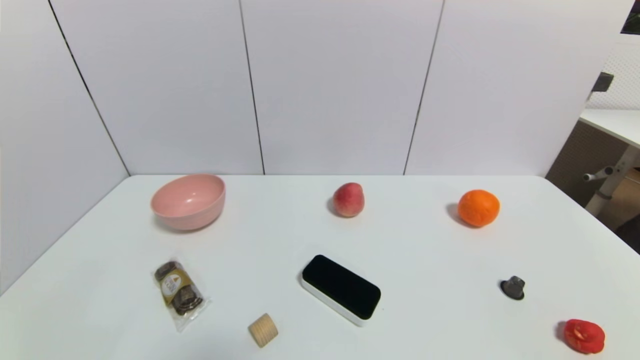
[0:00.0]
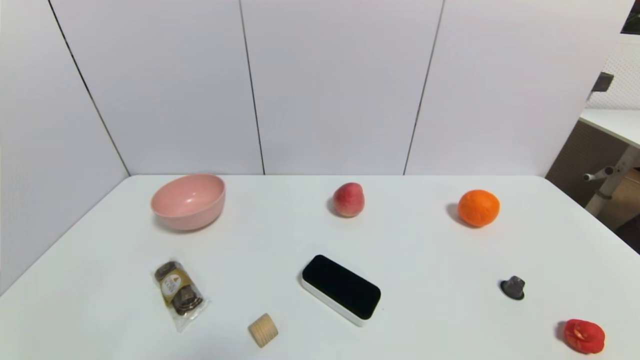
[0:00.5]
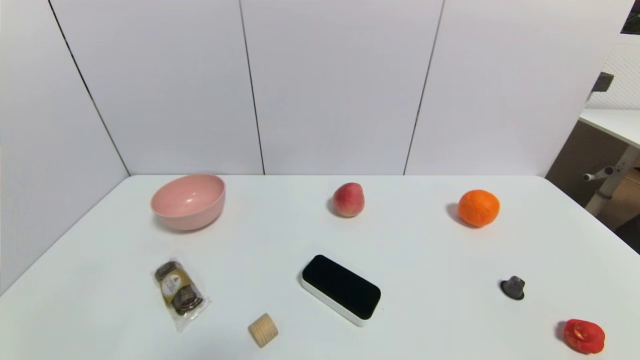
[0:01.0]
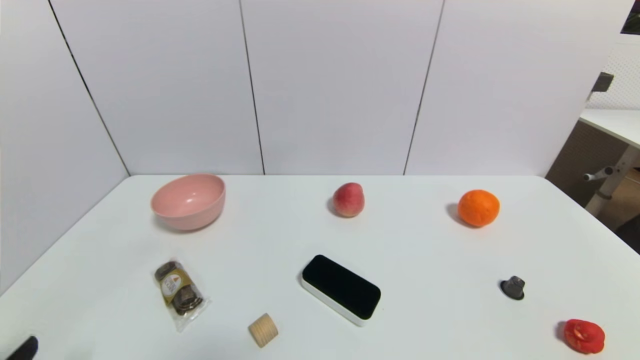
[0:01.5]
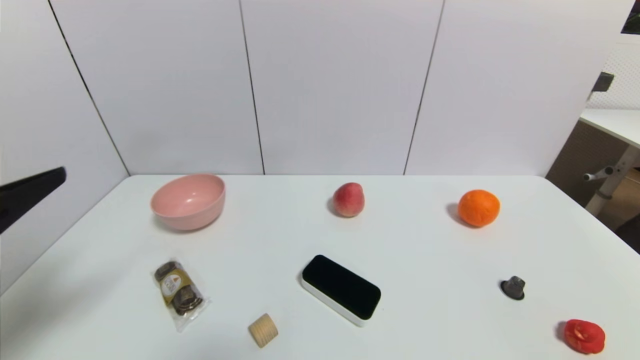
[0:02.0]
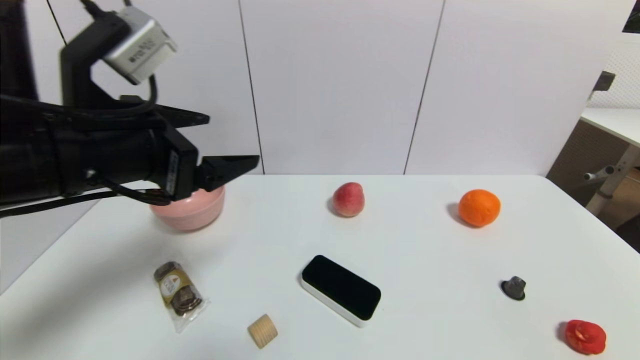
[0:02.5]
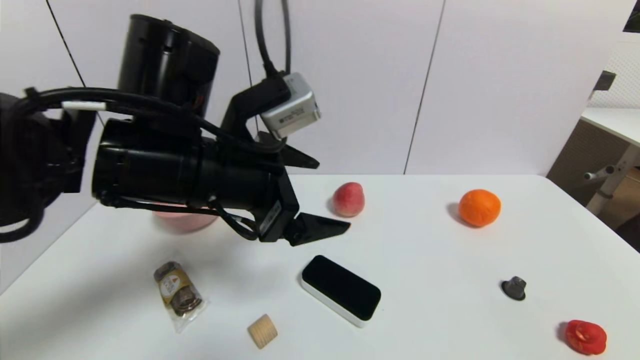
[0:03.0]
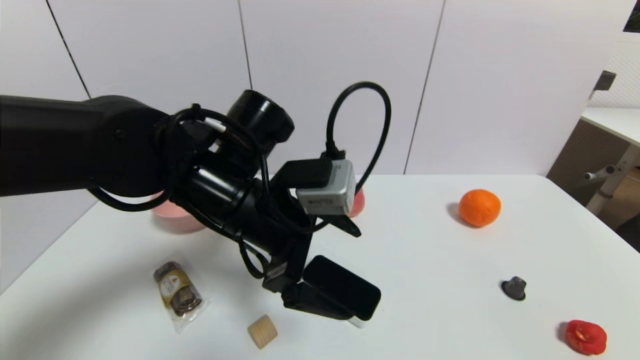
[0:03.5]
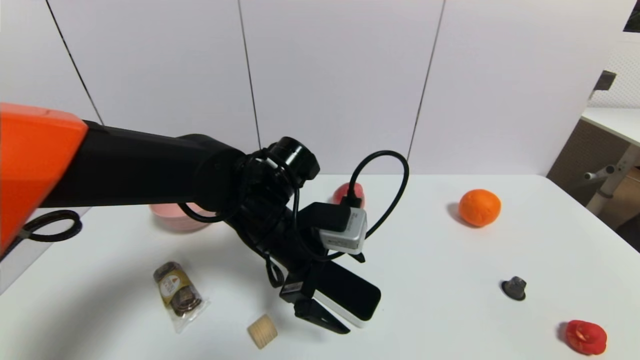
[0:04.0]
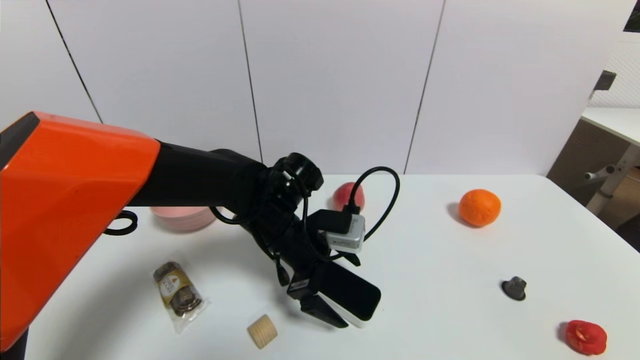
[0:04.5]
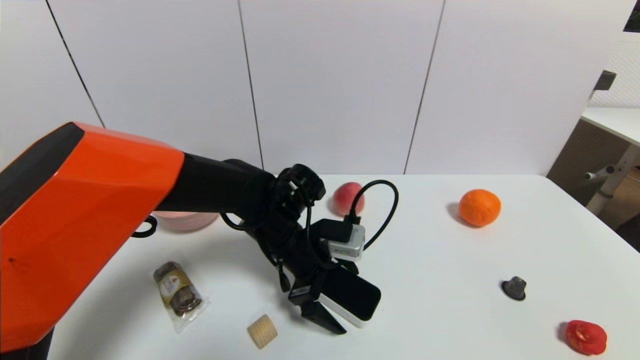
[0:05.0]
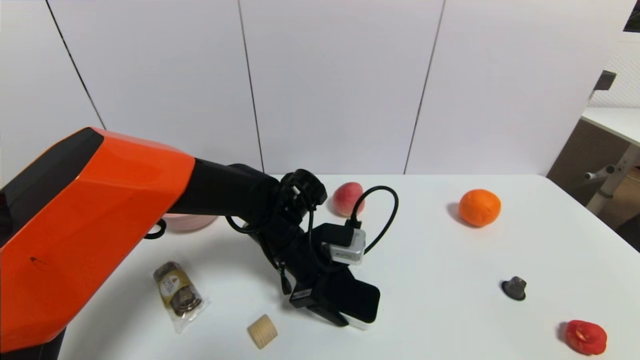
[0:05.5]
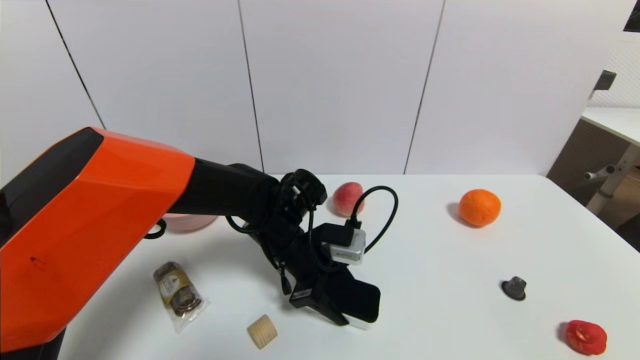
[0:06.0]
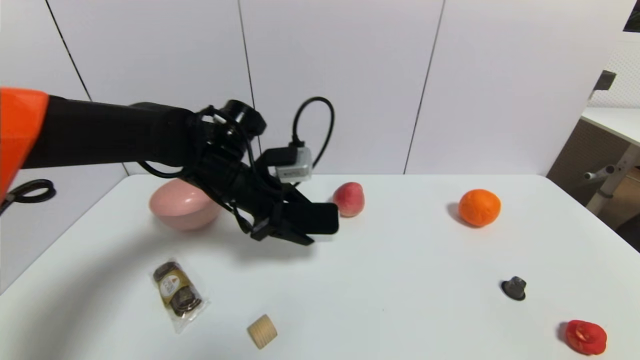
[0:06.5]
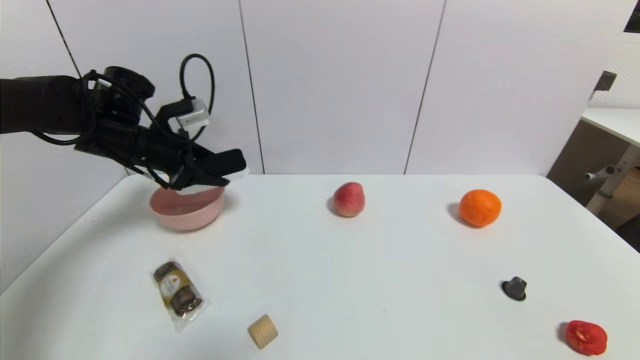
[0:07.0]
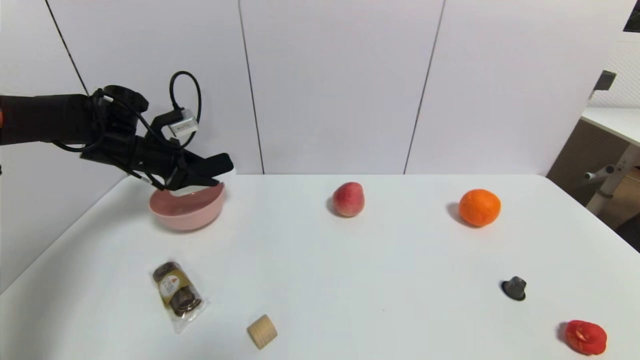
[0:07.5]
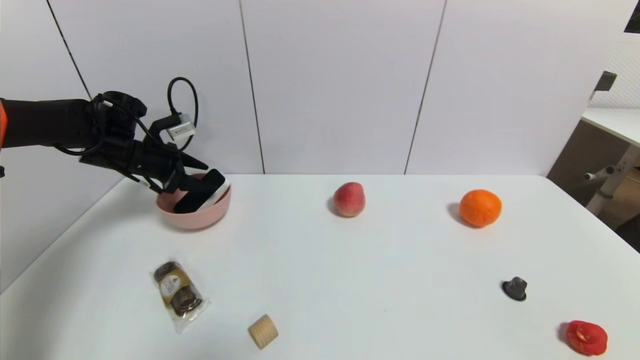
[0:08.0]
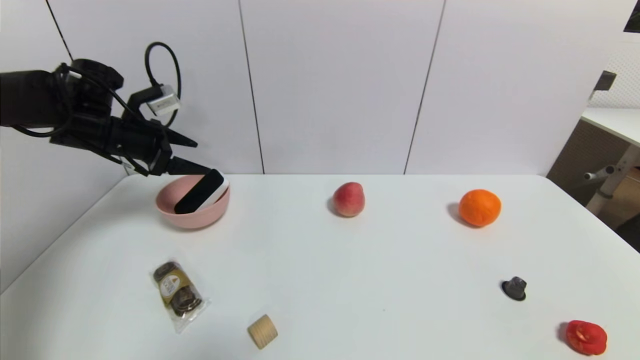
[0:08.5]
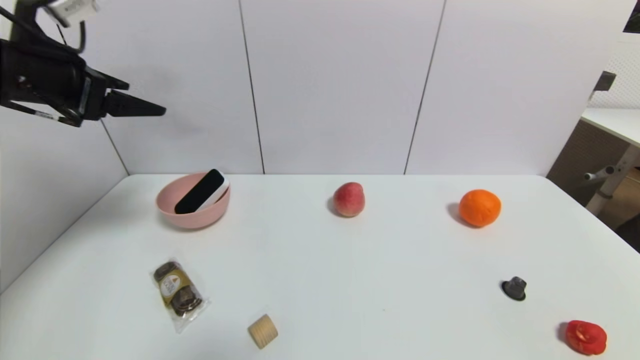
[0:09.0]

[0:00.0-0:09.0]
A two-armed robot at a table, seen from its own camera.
Task of the whole recording: use a gripper to pick the target object and place on the pink bowl.
Step, 0:00.0 to 0:05.5: Grasp the blackboard erasure with the left gripper.
Step, 0:06.0 to 0:08.0: Place the blackboard erasure on the pink bowl with the left gripper.
0:00.0 to 0:02.0: The left gripper travels upward and forward by roughly 25 cm.
0:02.0 to 0:04.5: The left gripper shifts approximately 35 cm to the right, forward and downward.
0:04.5 to 0:07.0: The left gripper goes roughly 25 cm to the left and upward, and closes its fingers.
0:07.0 to 0:09.0: The left gripper heads upward and backward, covering approximately 15 cm, and opens up.

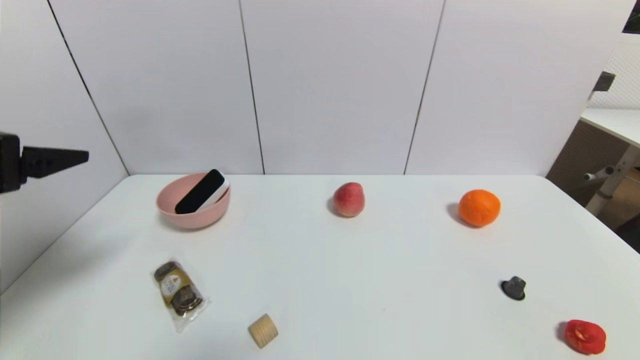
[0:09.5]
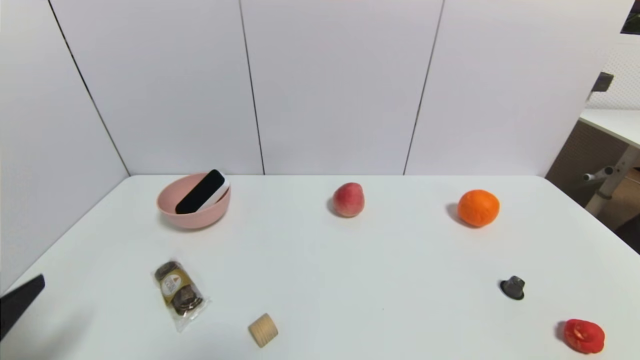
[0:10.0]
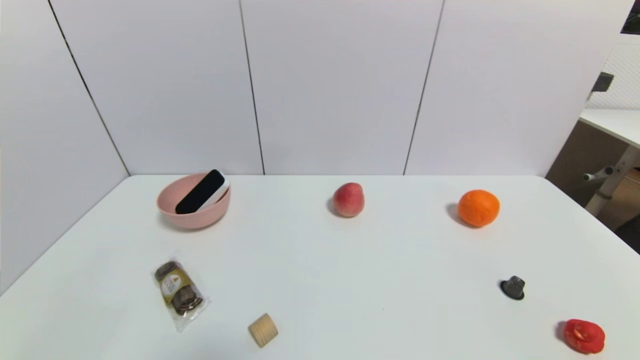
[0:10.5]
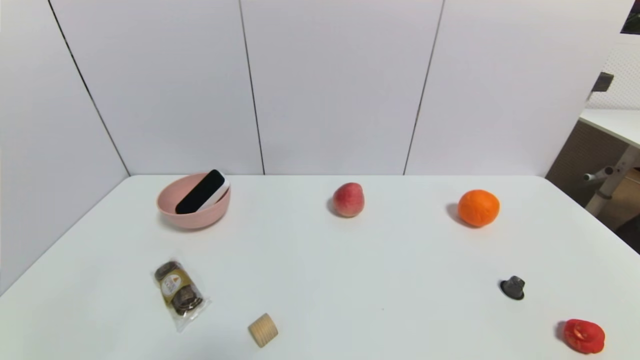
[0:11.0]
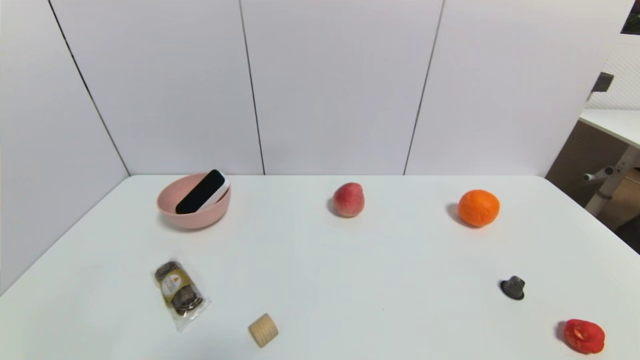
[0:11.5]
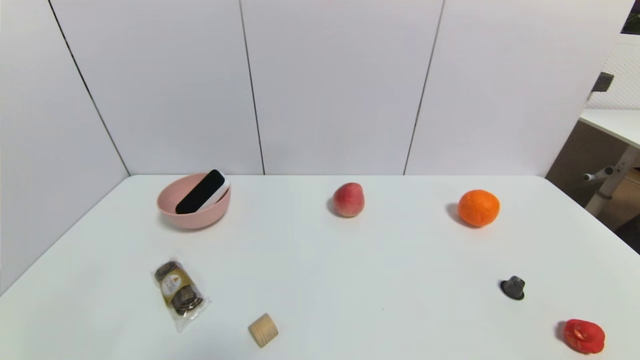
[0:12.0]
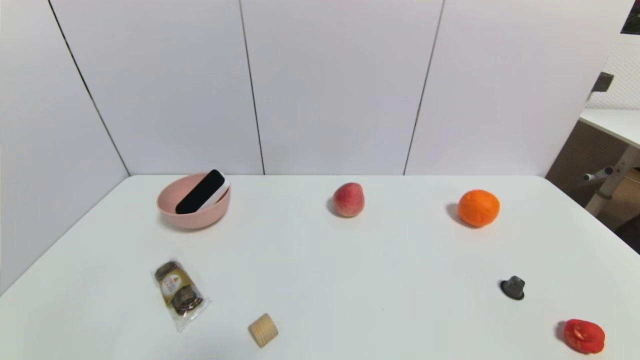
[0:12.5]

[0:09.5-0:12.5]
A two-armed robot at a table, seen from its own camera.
Task of the whole recording: use a gripper to pick the target object and place on the pink bowl.
0:09.5 to 0:11.0: The left gripper moves downward and backward, roughly 30 cm.
0:11.0 to 0:12.5: Neither gripper changes place.
